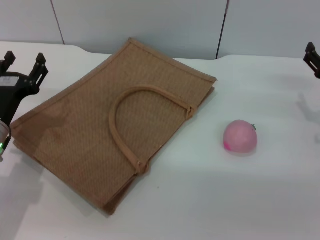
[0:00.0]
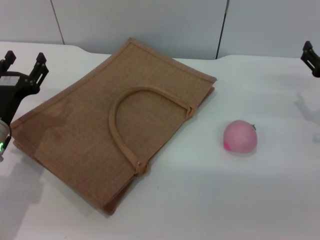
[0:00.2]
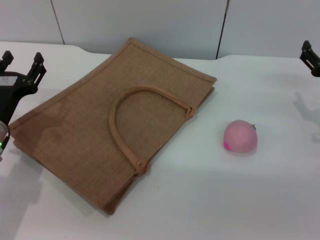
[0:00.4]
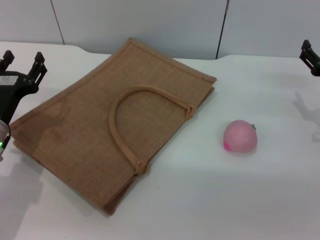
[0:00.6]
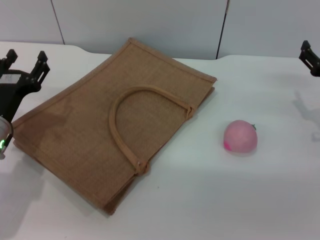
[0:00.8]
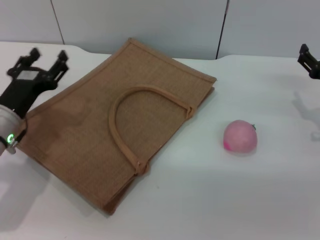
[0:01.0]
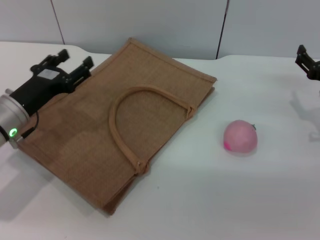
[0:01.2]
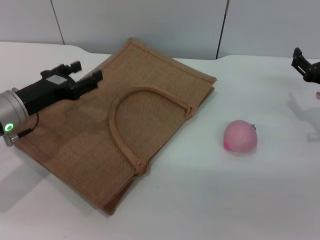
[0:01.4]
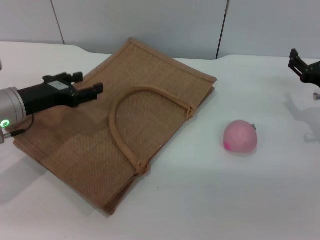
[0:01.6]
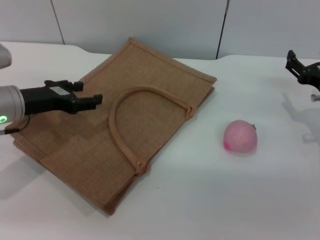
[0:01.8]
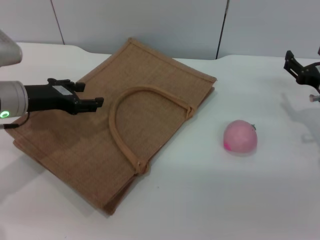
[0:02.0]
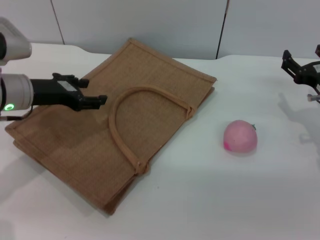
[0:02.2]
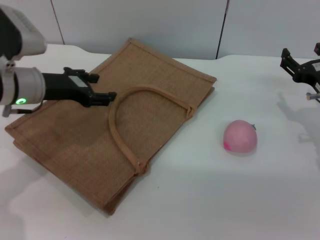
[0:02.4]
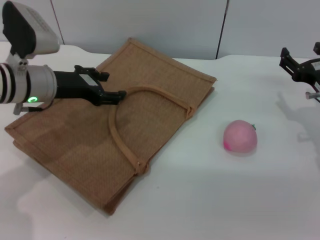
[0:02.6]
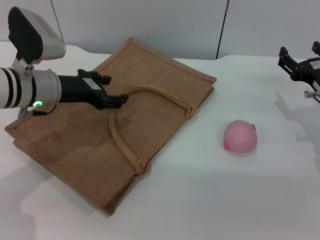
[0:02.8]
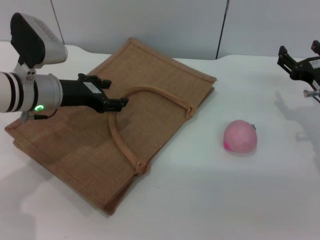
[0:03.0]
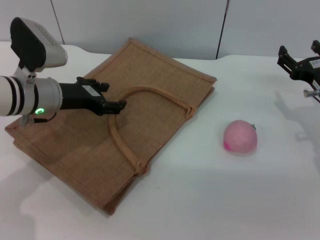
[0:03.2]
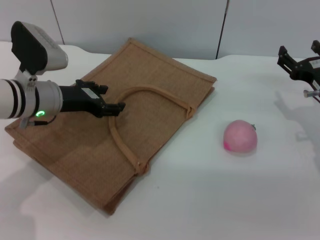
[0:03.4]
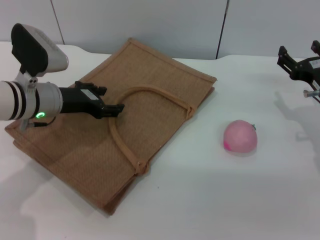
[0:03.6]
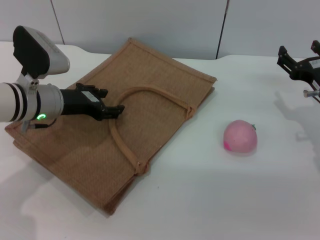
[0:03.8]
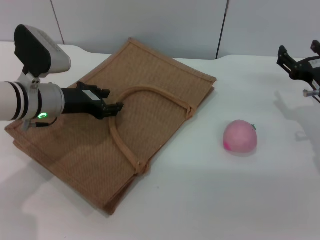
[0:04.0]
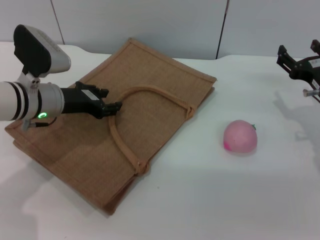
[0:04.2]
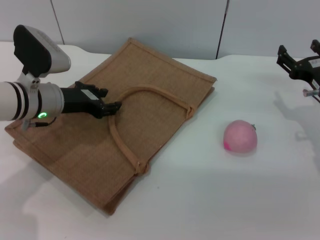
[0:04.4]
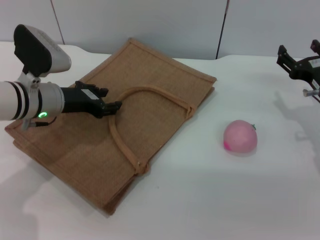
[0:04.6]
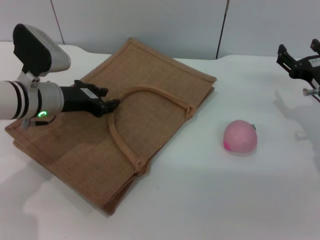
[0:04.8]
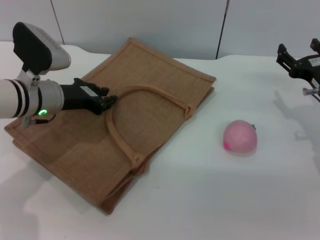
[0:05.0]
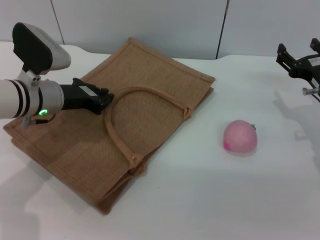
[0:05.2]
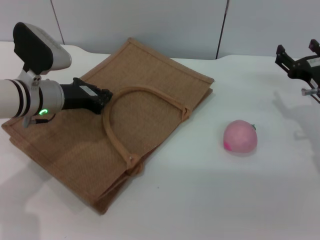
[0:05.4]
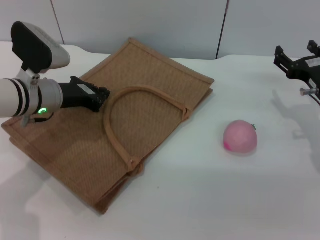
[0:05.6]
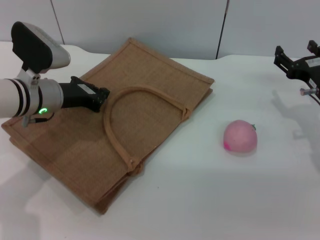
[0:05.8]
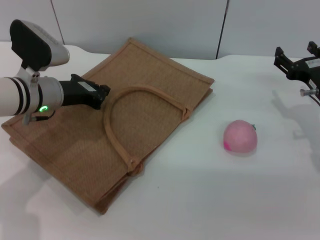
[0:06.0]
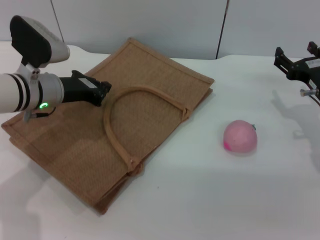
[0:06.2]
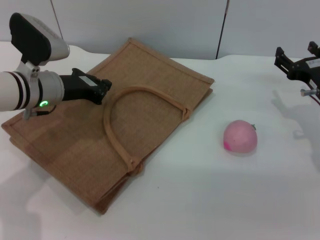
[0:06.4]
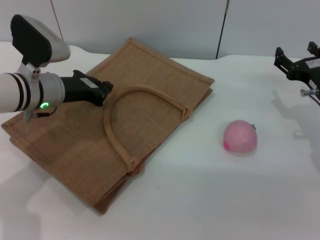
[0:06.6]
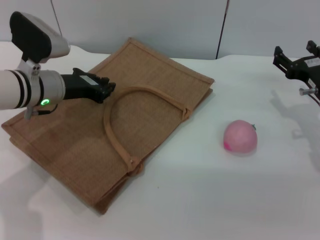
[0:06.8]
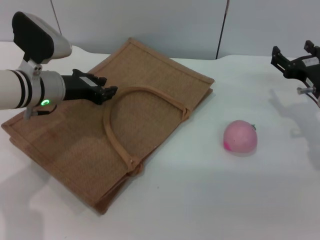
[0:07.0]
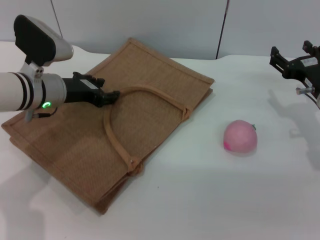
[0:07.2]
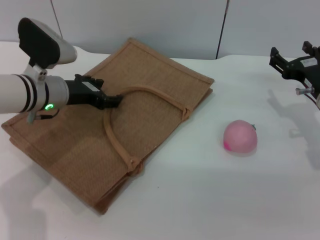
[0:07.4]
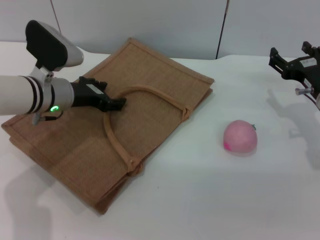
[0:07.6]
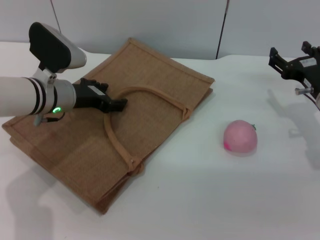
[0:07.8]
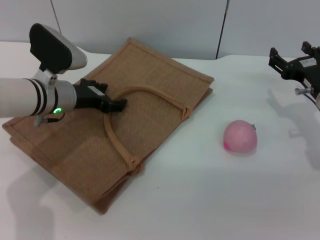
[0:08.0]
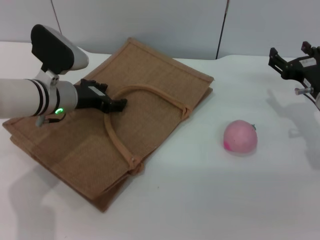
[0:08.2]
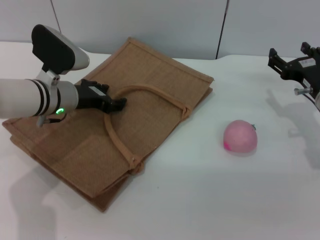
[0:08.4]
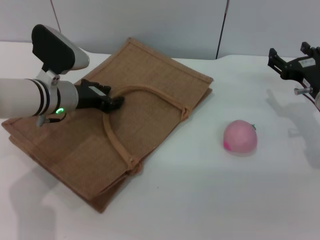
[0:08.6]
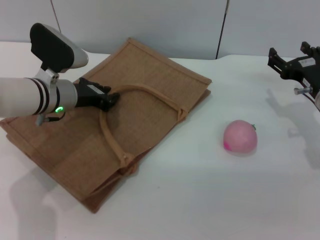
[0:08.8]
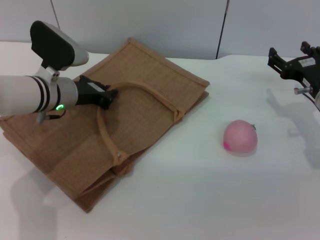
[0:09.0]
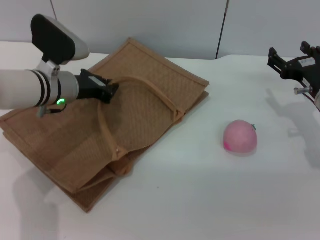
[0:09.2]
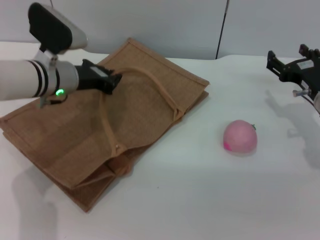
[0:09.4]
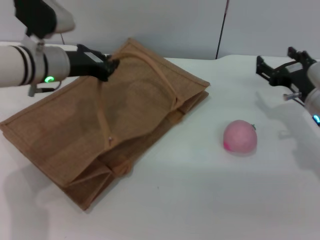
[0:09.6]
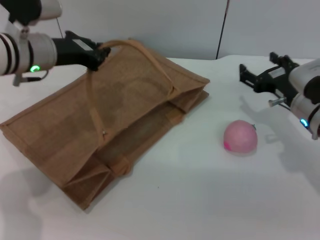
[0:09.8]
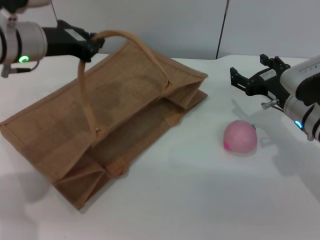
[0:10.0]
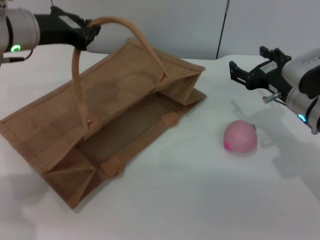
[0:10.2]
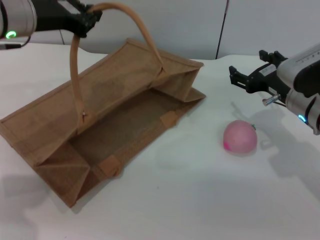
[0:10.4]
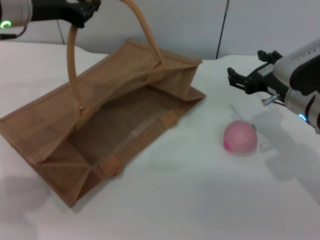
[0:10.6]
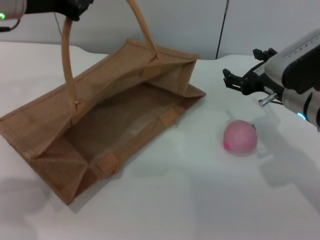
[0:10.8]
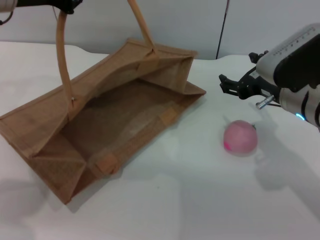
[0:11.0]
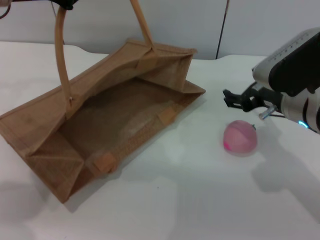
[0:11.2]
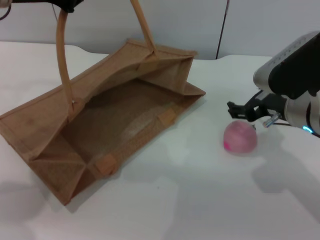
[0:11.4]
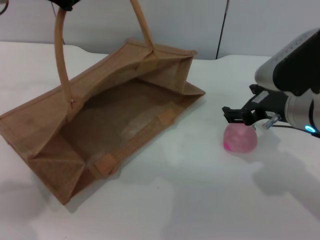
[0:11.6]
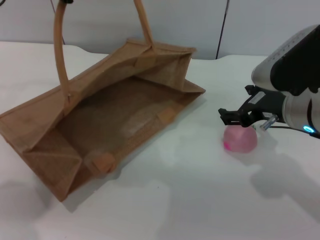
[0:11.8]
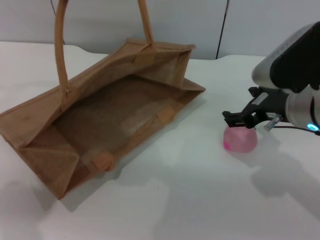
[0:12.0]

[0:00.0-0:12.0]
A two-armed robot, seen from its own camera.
Task of the whole recording: pick up the peach from the table and place it in the brown handbag.
Step, 0.0 to 9.6 s: Lift the woven bag with the left gripper to open it.
0.0 to 1.6 s: The left gripper goes roughly 5 cm forward.
1.6 to 3.0 s: The left gripper heads to the right, covering some 5 cm.
3.0 to 4.4 s: The grippers stay close to where they were, moving slightly.
4.4 to 6.0 s: The left gripper closes its fingers.
6.0 to 7.6 s: The left gripper opens up.
7.6 to 9.0 s: The left gripper closes its fingers.
9.0 to 10.4 s: The right gripper is displaced to the left by approximately 5 cm; the left gripper is displaced upward by roughly 15 cm.
10.4 to 12.0 s: Both grippers travel together upward, roughly 5 cm.

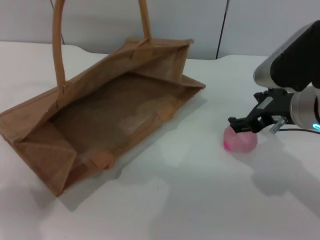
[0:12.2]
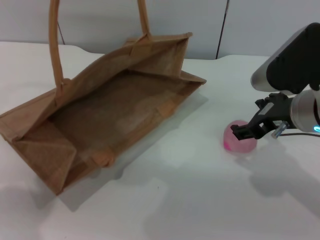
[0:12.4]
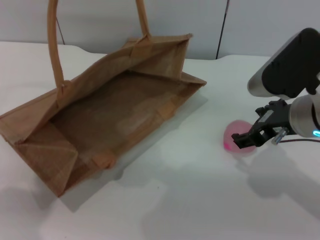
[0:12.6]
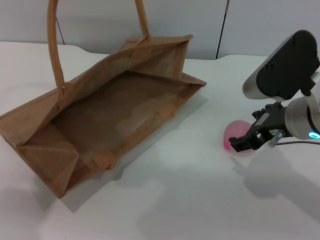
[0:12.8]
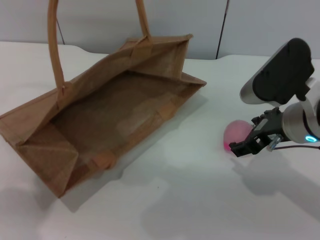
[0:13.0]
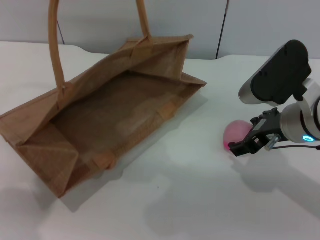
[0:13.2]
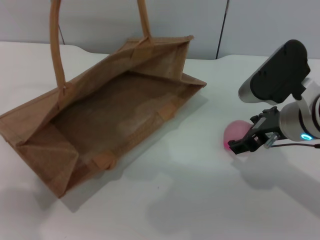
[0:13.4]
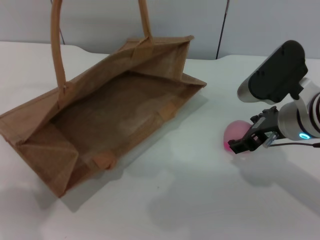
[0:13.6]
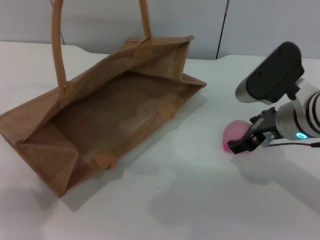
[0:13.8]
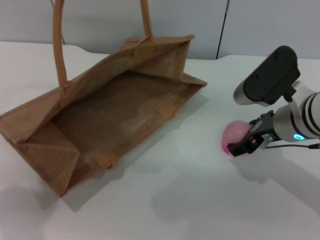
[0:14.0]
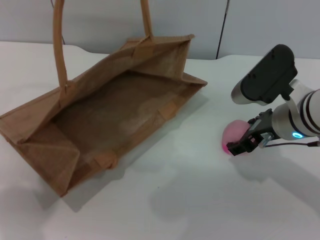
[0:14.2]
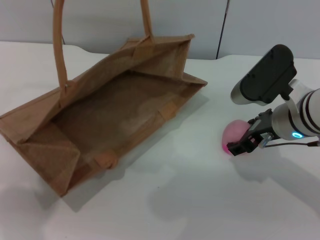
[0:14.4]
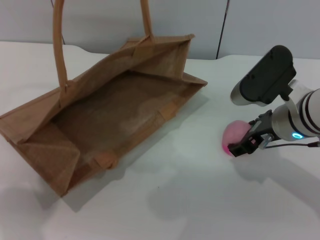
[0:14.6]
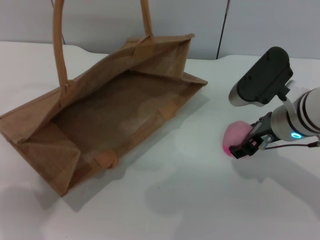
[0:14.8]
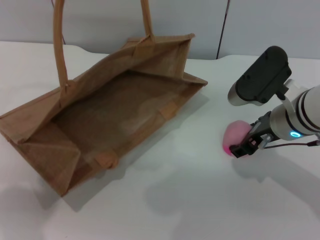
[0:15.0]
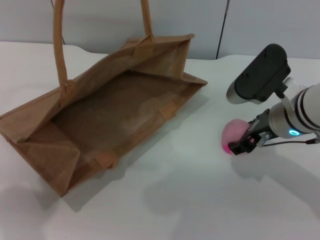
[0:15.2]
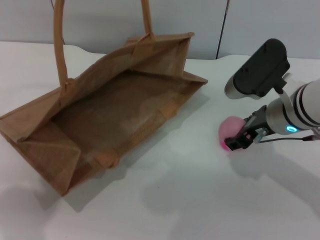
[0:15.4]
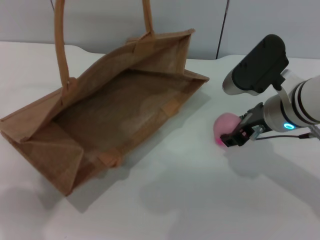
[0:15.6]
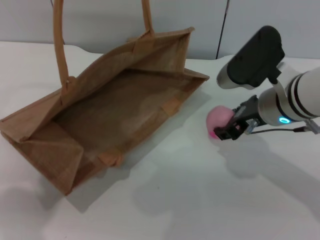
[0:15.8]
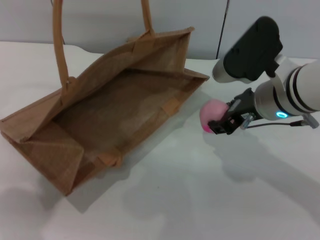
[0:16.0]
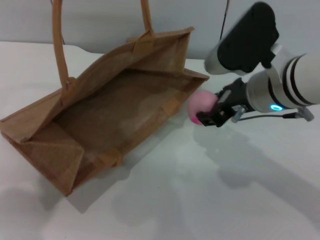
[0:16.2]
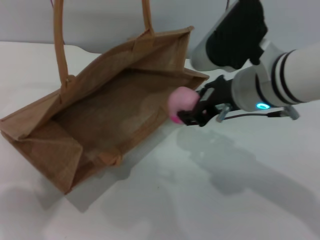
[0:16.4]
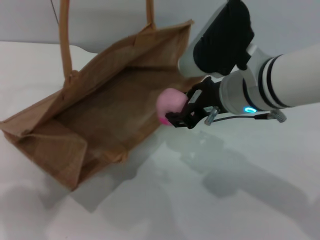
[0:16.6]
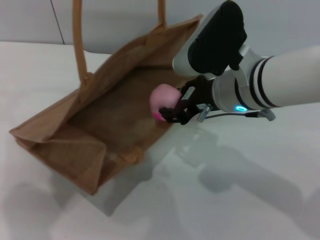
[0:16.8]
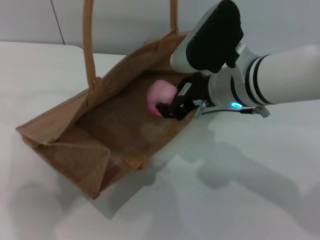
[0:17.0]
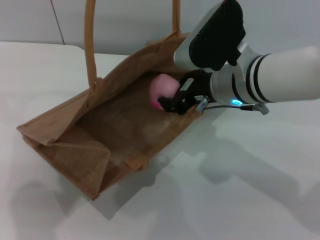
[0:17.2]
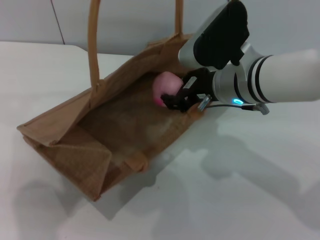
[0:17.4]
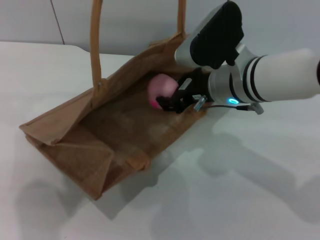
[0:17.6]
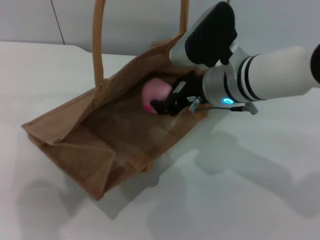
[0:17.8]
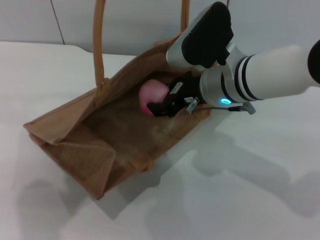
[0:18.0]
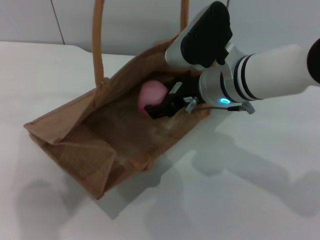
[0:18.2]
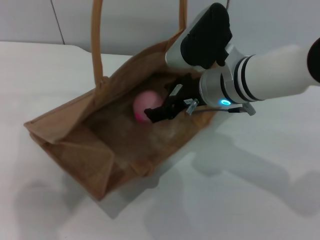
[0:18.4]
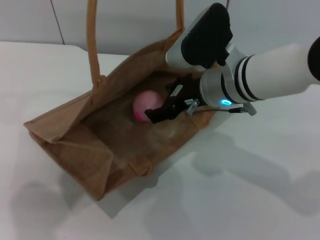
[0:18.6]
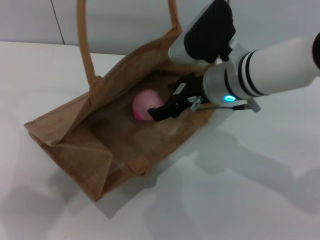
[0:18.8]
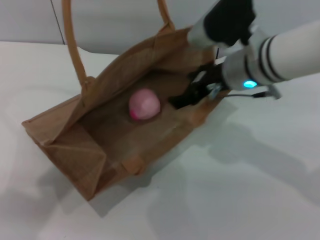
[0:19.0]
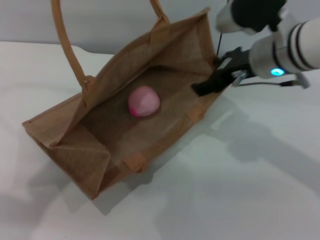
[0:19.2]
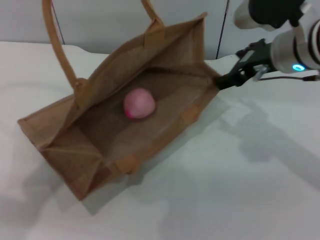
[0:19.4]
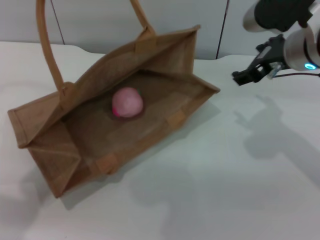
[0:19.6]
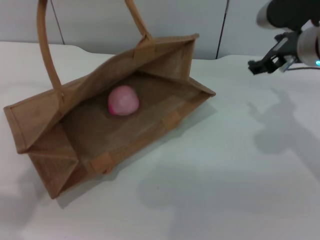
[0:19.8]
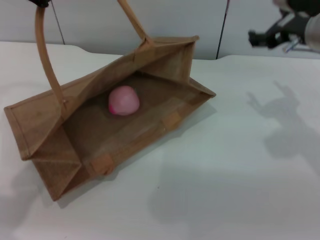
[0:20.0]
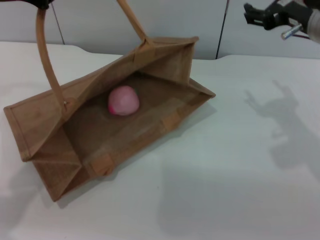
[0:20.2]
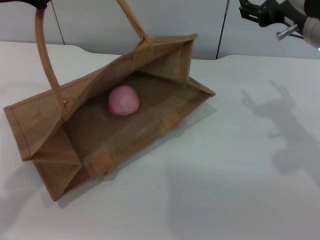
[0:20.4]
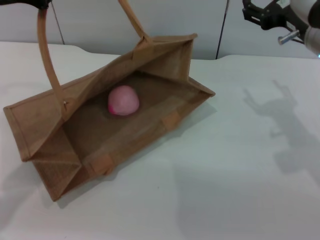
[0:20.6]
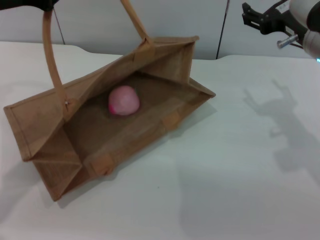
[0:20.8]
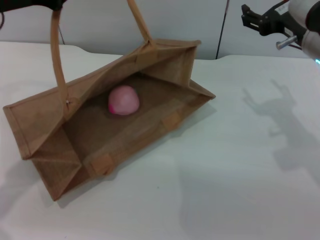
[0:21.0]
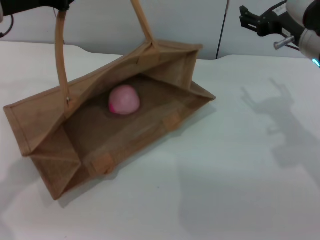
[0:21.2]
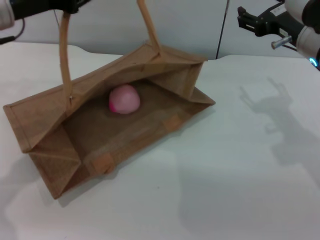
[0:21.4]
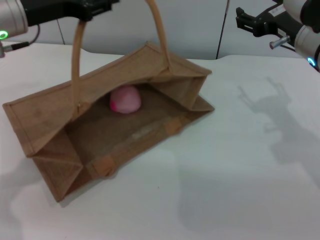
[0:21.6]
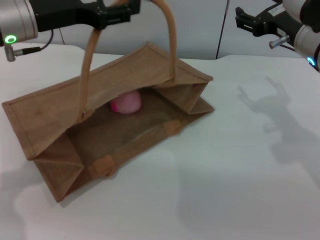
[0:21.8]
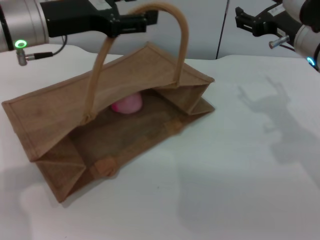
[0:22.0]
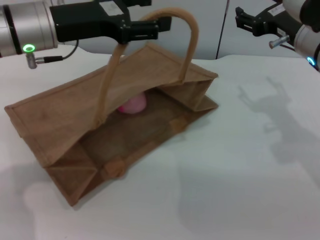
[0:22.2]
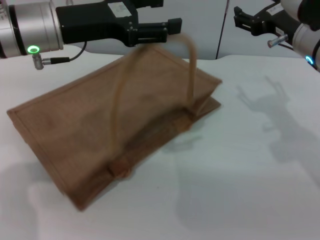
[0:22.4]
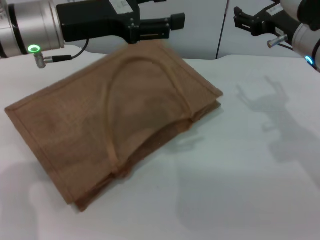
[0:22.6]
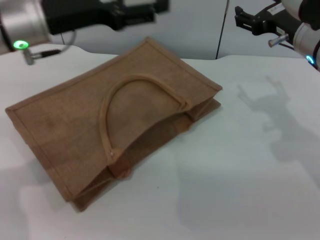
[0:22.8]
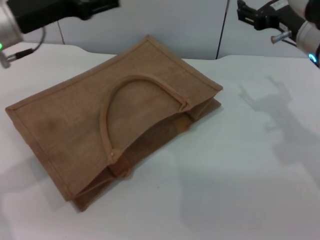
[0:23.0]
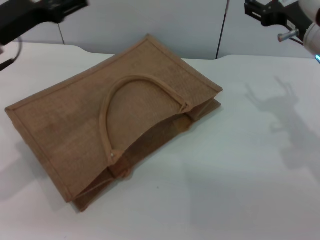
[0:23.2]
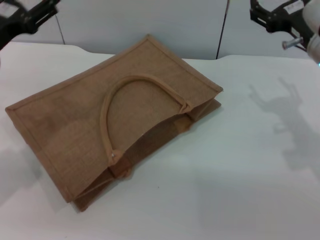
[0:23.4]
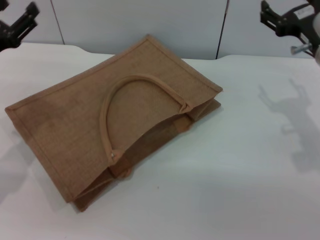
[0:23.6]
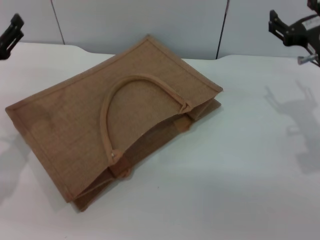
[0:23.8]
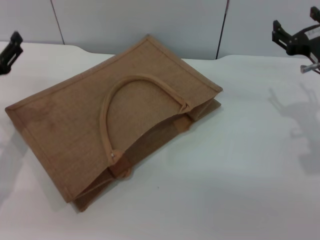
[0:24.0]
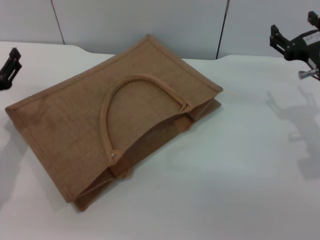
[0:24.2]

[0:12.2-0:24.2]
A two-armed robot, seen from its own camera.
Task of the whole recording: pick up the peach from the table and place it in the brown handbag.
Step, 12.2 to 15.8 s: Pick up the peach with the right gripper.
Step, 16.0 to 18.8 s: Place the peach into the woven bag with the right gripper.
Step, 19.0 to 23.0 s: Lower the woven bag with the left gripper to close it.
12.2 to 13.8 s: The grippers stay close to where they were, moving slightly.
13.8 to 15.2 s: The right gripper closes its fingers.
15.2 to 16.6 s: The right gripper heads to the left and upward, covering some 10 cm, and closes up.
16.6 to 18.2 s: The right gripper changes place by some 5 cm.
18.2 to 19.8 s: The left gripper is displaced to the left by some 10 cm. The right gripper heads to the right, covering approximately 10 cm, and opens its fingers.
19.8 to 21.2 s: The left gripper goes about 5 cm downward.
21.2 to 22.6 s: The left gripper goes approximately 5 cm to the right, and opens up.
22.6 to 24.2 s: The right gripper goes roughly 10 cm downward and to the right, while the left gripper moves downward, to the left and backward, roughly 20 cm.
